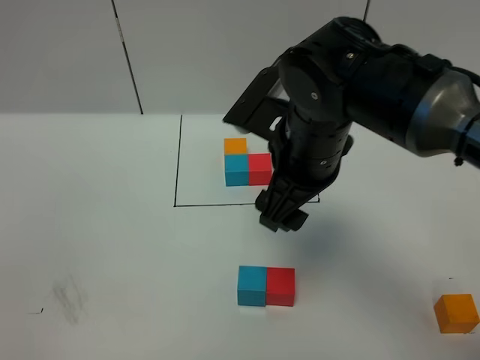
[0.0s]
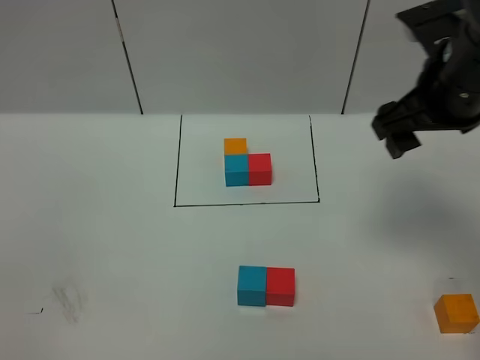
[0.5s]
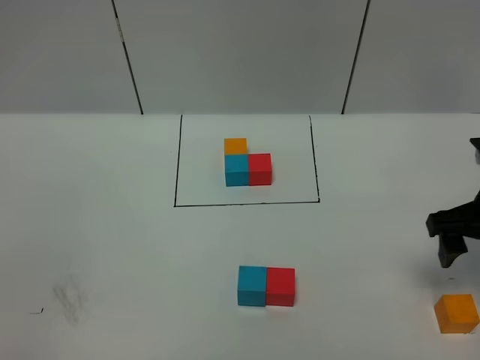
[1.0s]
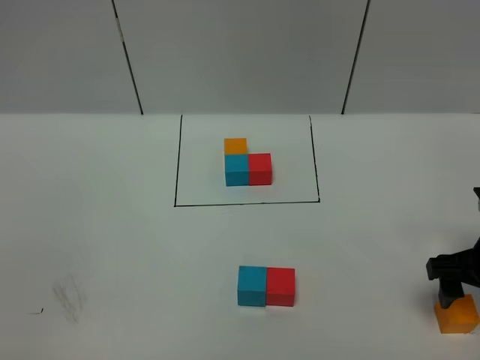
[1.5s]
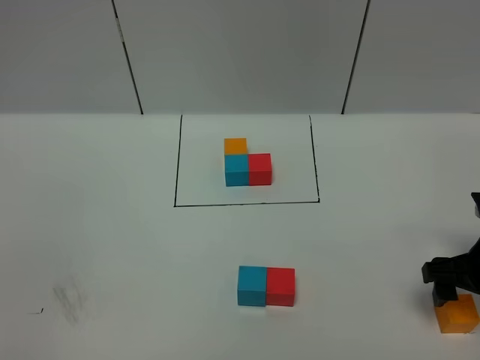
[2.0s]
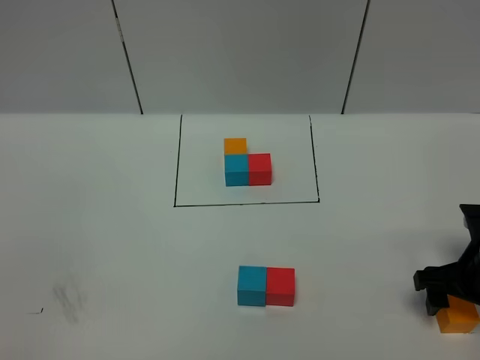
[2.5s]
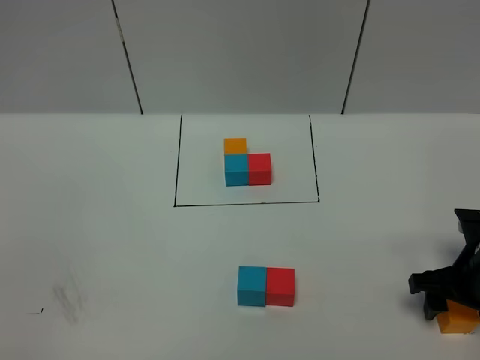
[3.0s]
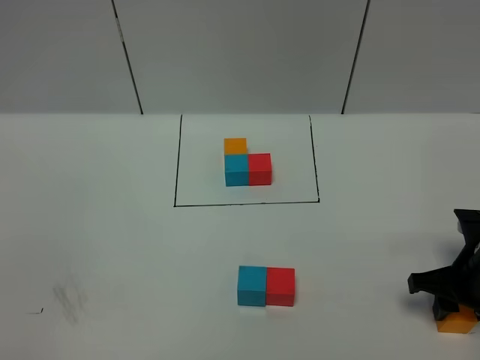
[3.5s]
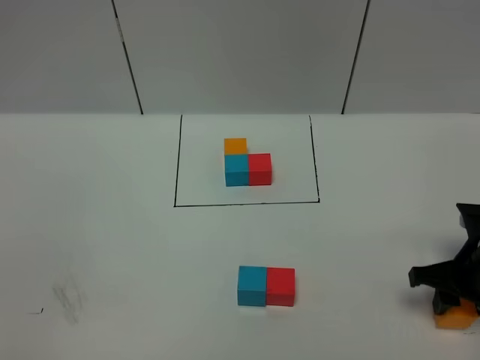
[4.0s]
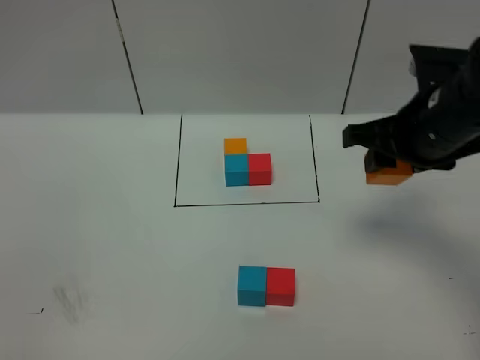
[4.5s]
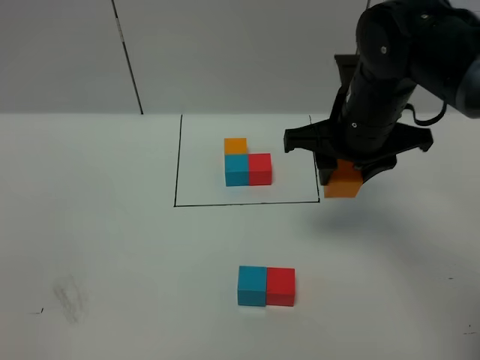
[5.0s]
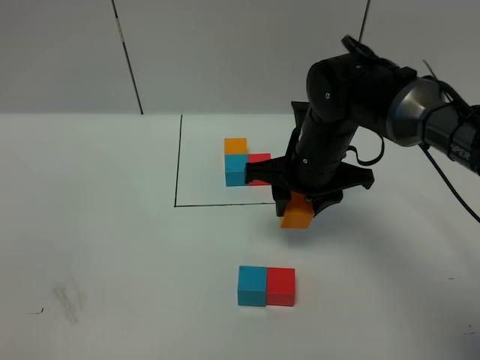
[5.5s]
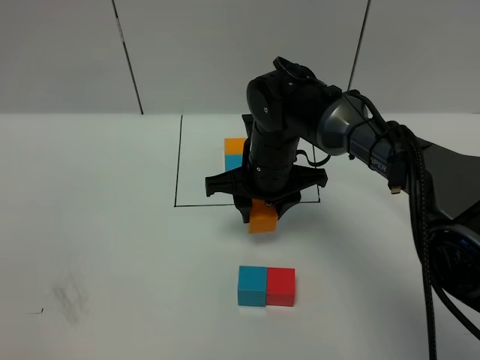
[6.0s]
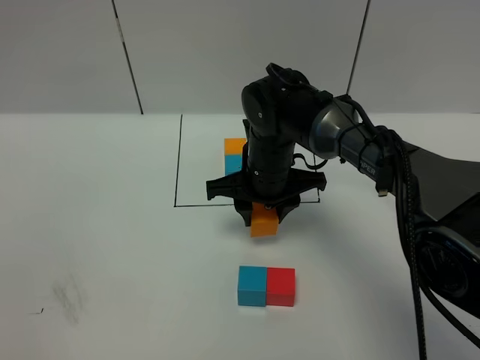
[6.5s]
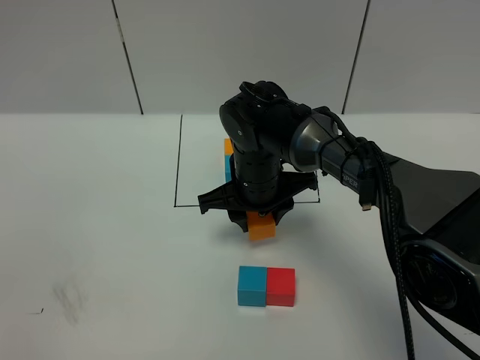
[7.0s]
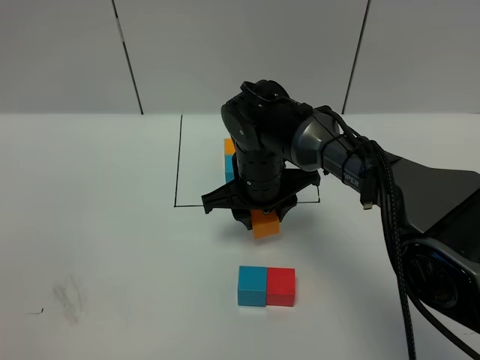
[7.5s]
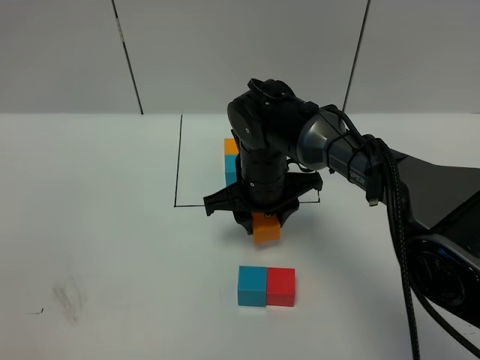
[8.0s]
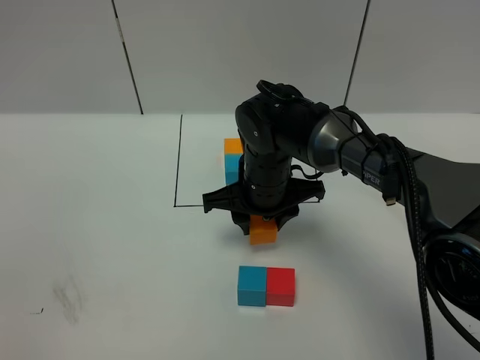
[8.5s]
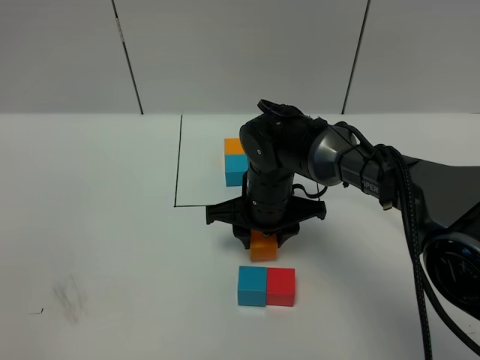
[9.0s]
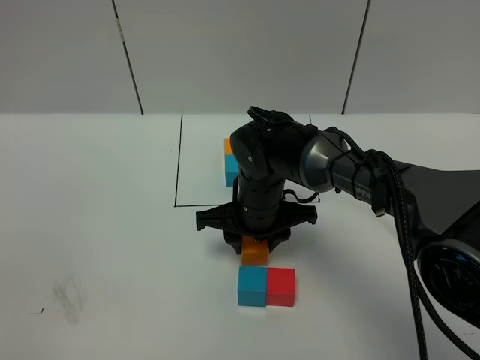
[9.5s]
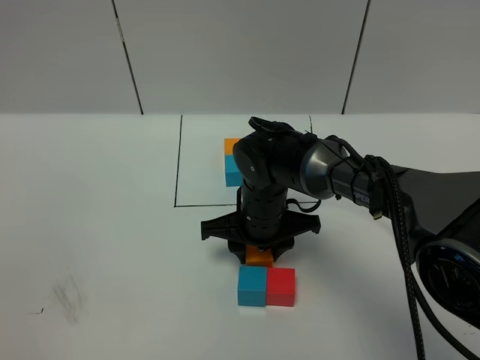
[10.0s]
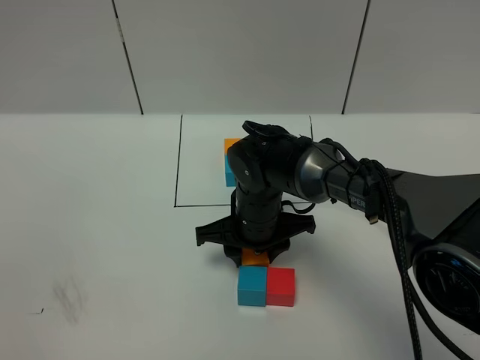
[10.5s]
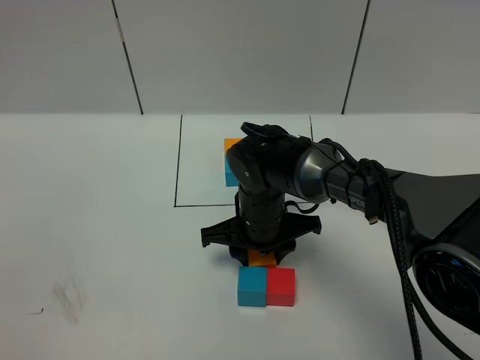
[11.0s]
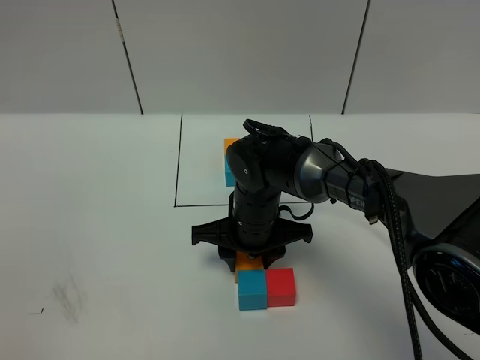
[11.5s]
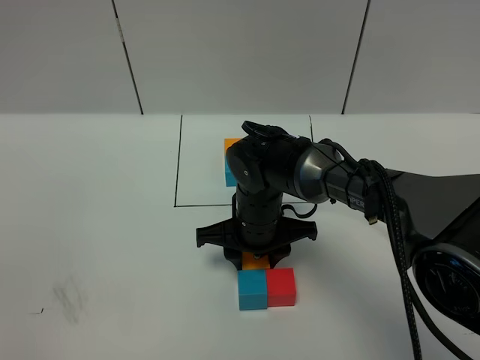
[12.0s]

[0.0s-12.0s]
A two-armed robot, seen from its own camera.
Task of the whole recording: According to the building block template in front, assemble the scattered blocks together.
0.0s to 2.0s: The right gripper travels to the right and downward by some 25 cm.
2.0s to 4.0s: The right gripper closes.
4.0s to 6.0s: The right gripper heads to the left and forward, covering about 30 cm.
6.0s to 8.0s: The grippers make only small movements.
8.0s to 10.0s: The grippers make only small movements.
10.0s to 12.0s: Both grippers stay about where they are.

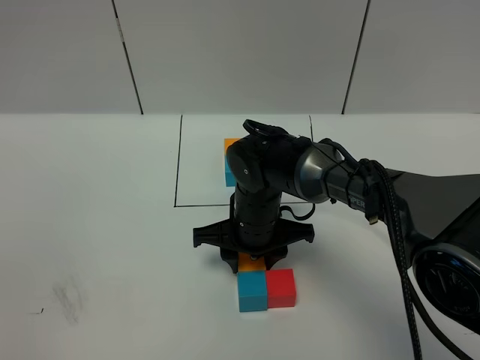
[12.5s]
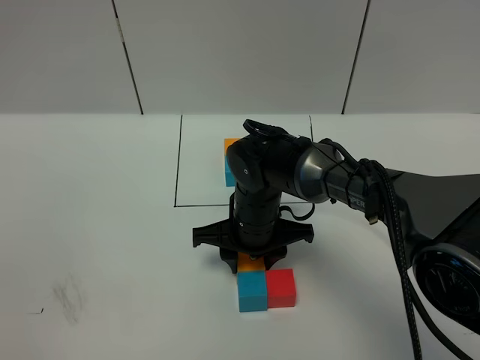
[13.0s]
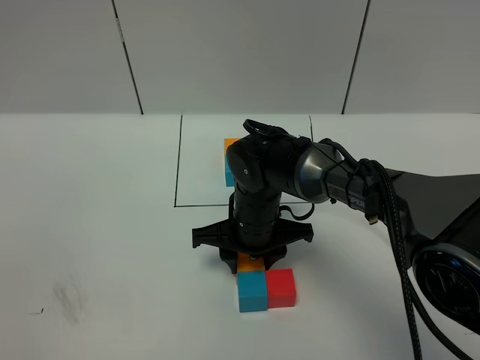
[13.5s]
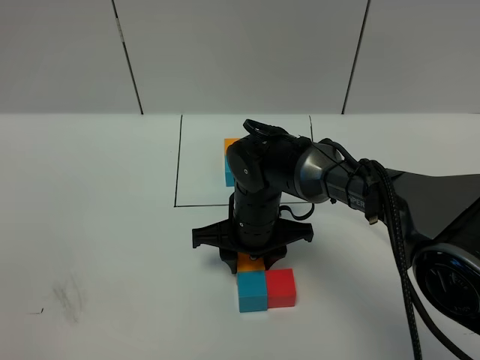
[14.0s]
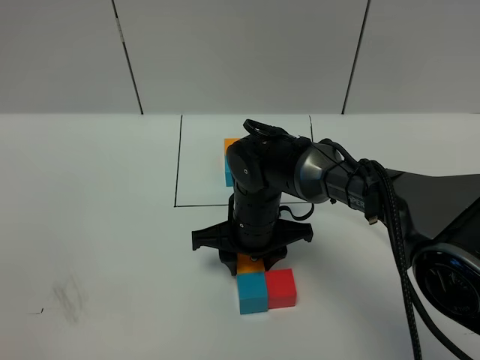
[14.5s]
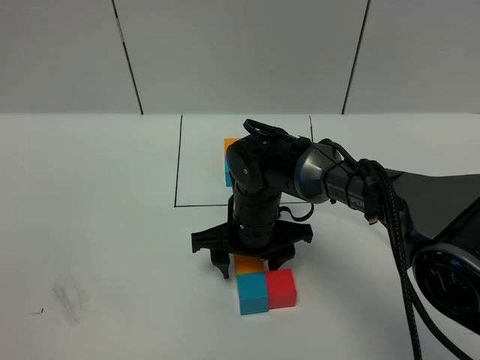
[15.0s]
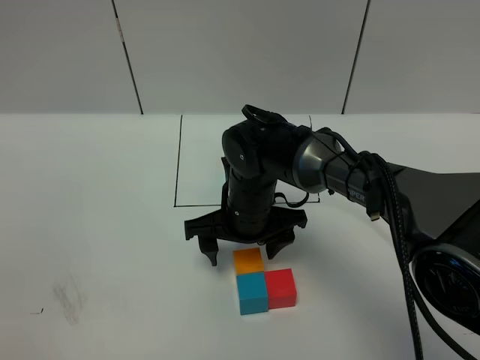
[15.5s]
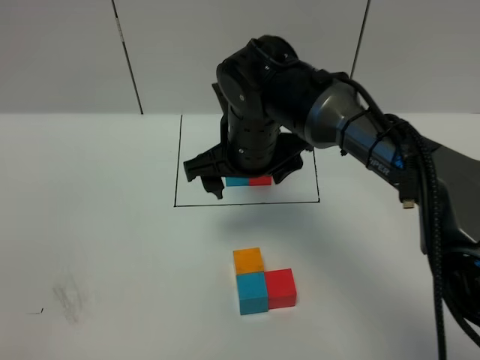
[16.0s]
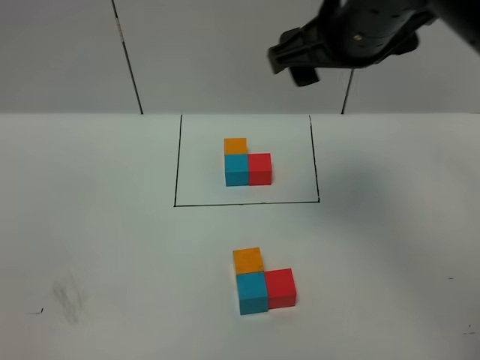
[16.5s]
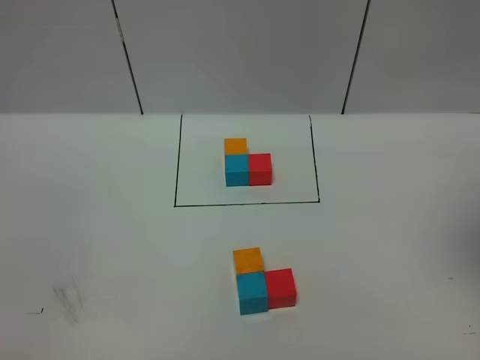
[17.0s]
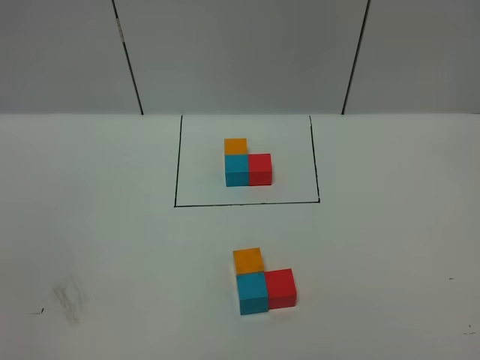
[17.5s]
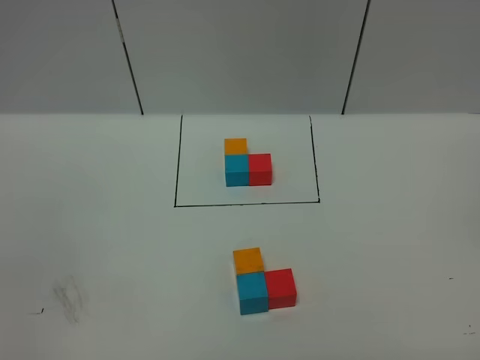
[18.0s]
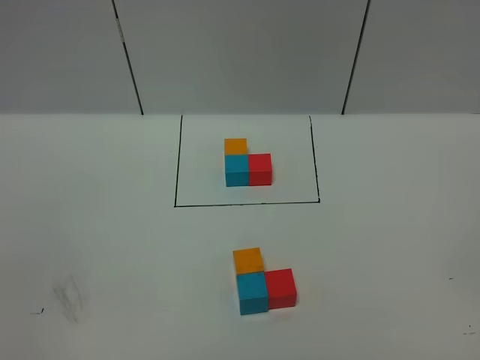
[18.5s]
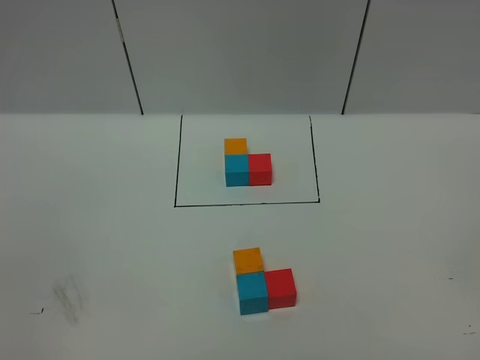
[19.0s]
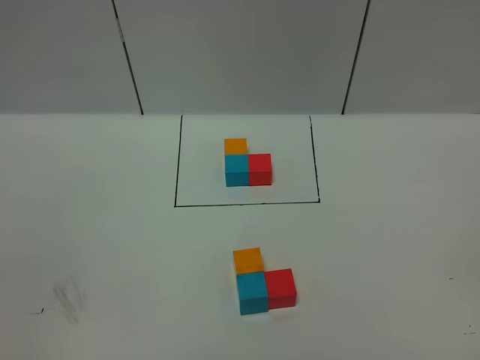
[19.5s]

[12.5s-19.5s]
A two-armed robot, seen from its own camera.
Task of the whole recording: According to the building block template in front, assemble the scattered blocks together.
12.5s to 14.5s: Both grippers stay put.
14.5s to 16.0s: The right gripper heads upward, covering approximately 10 cm, and opens its fingers.
16.0s to 17.5s: The right gripper moves backward, to the right and upward, approximately 50 cm.

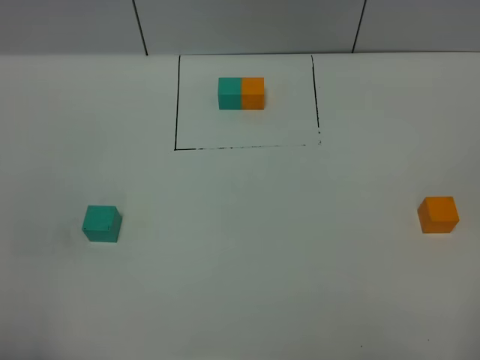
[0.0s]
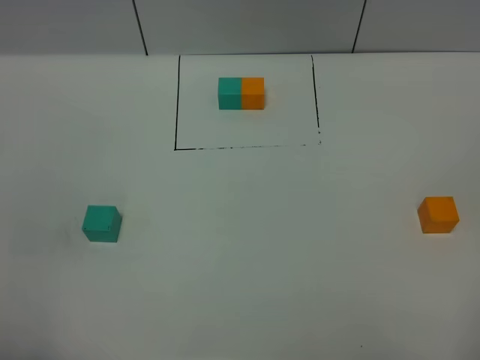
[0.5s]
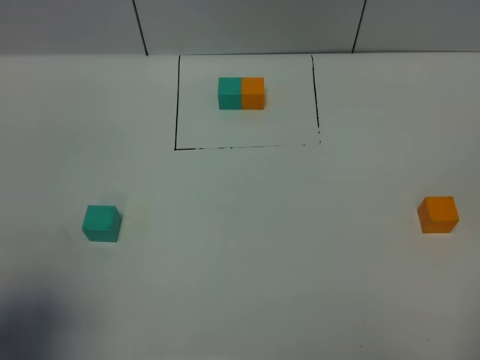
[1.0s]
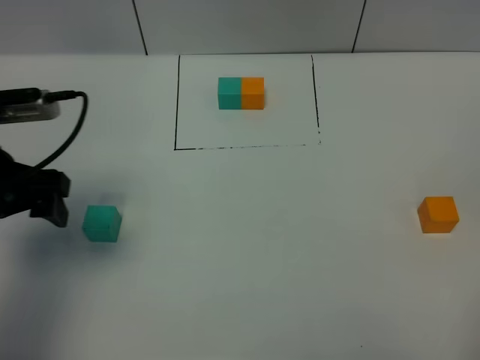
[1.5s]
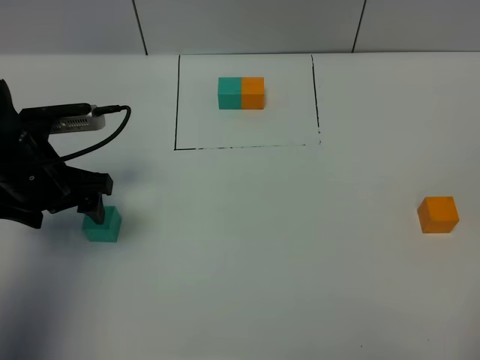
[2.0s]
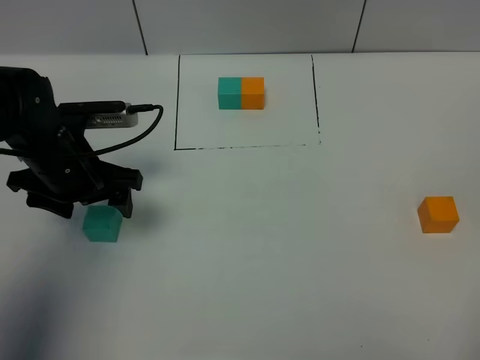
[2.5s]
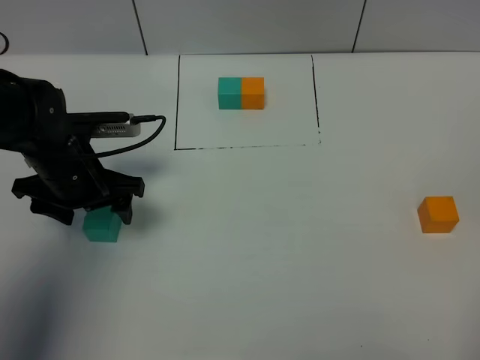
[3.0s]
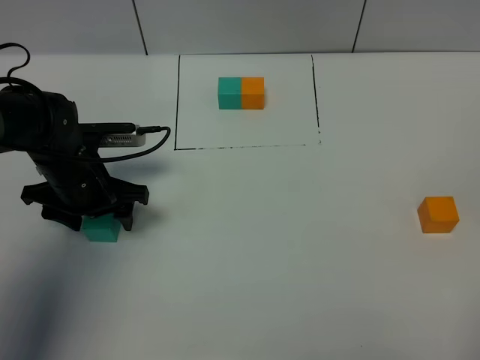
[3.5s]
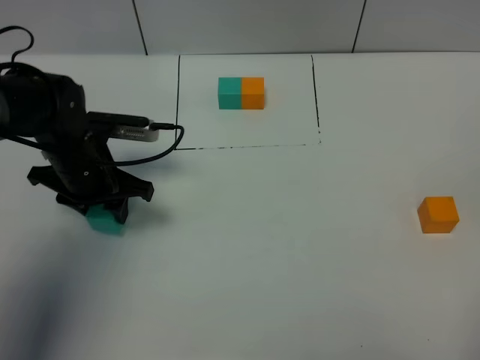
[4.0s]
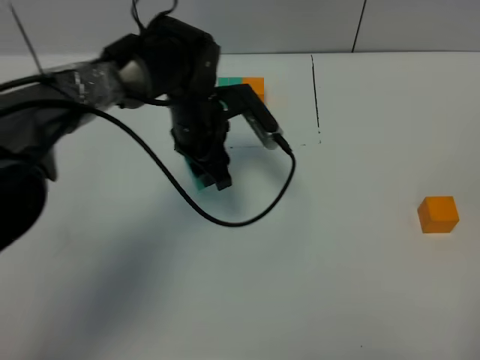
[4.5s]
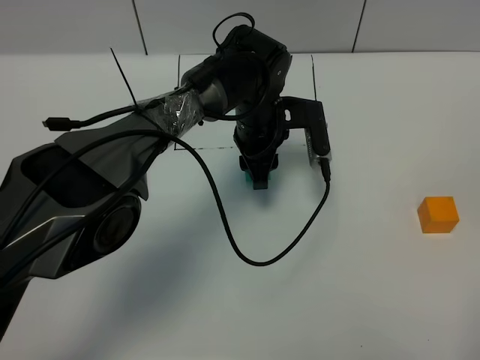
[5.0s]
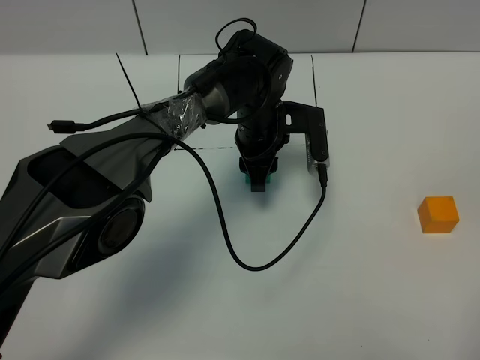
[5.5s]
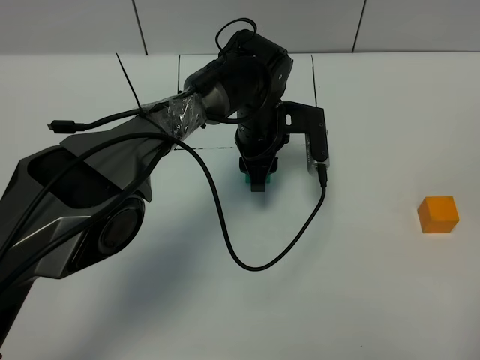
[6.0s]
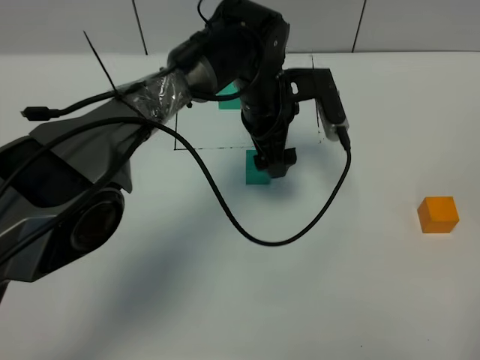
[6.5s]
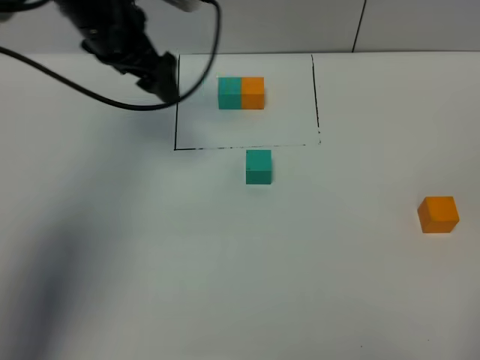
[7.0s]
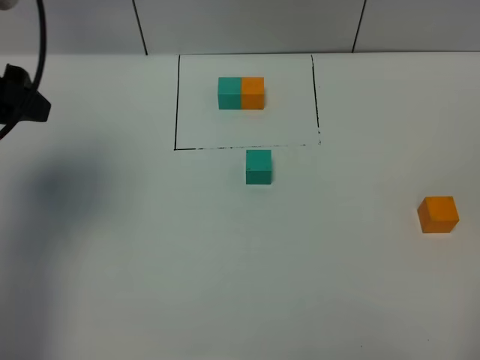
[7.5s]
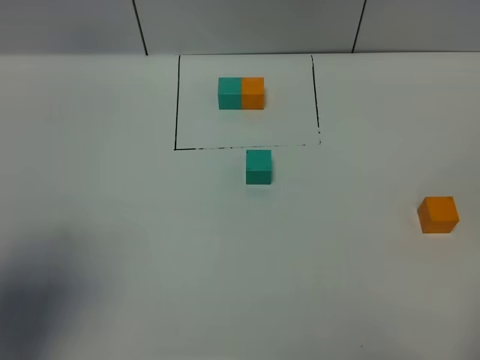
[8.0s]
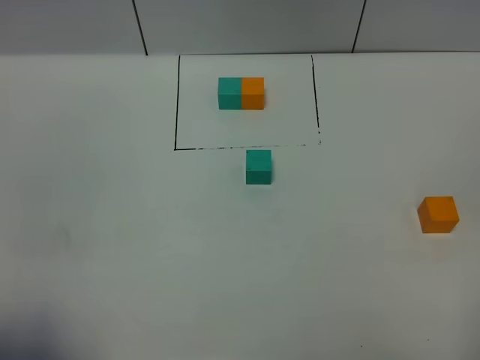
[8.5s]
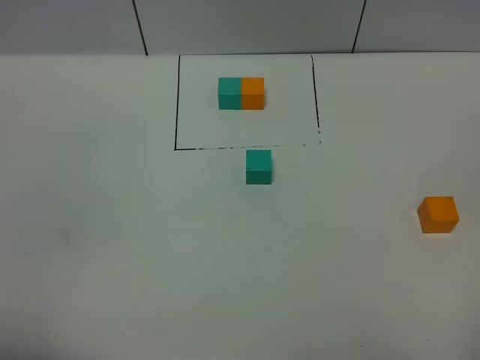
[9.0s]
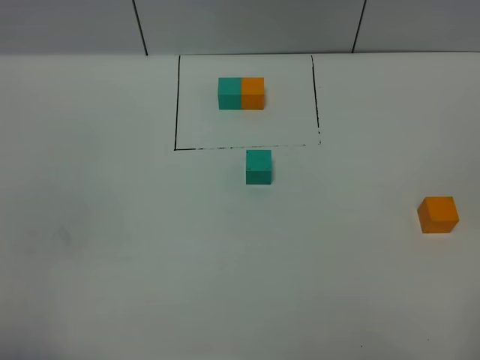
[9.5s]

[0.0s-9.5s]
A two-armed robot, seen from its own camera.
Task of the whole recording: According to the building block template in front, assemble the scattered blocks together.
Step, 1.5s to 7.5s: Put the green cube in the center of the table.
0.0s to 2.0s: The left gripper goes about 30 cm forward.
2.0s to 4.0s: The left gripper moves roughly 5 cm, and closes its fingers.
4.0s to 5.5s: The left gripper travels to the right by some 20 cm.
5.5s to 7.5s: The left gripper moves to the left, upward and backward, about 40 cm, and opens up.
7.5s to 9.5s: The left gripper goes about 30 cm backward.
